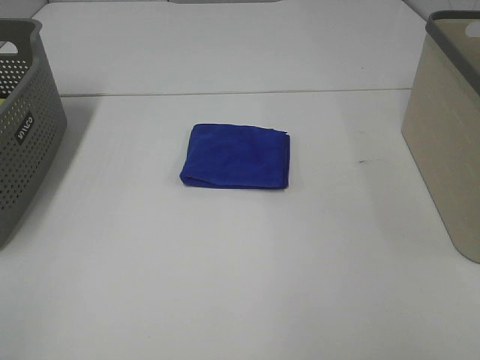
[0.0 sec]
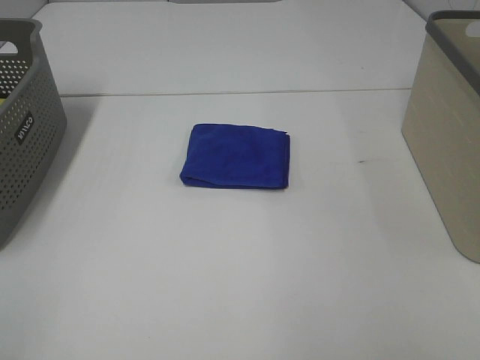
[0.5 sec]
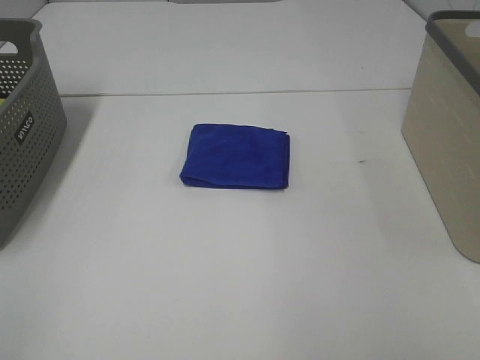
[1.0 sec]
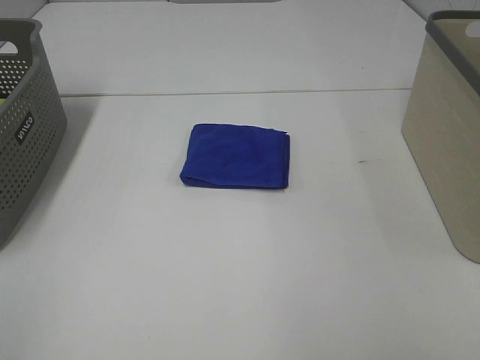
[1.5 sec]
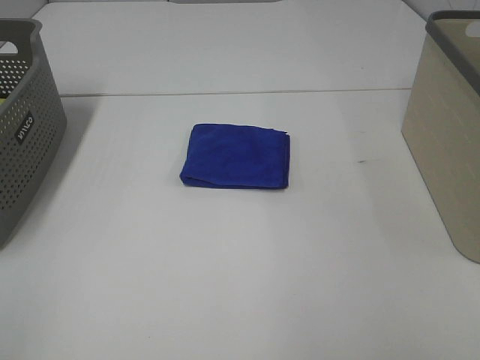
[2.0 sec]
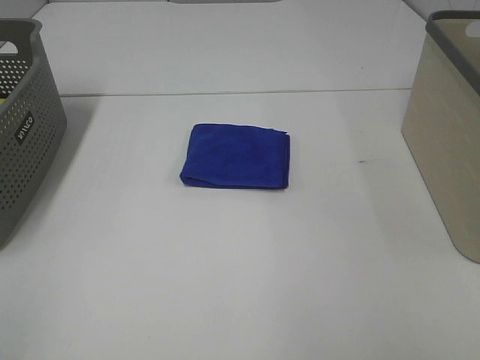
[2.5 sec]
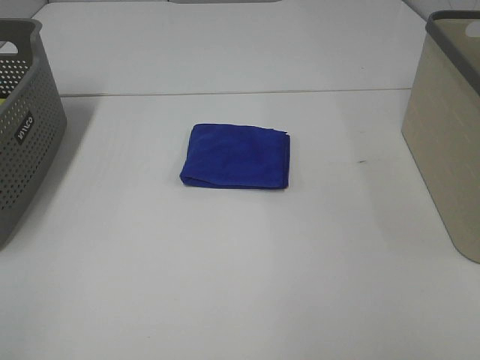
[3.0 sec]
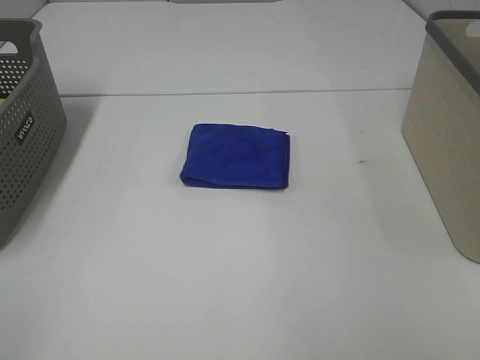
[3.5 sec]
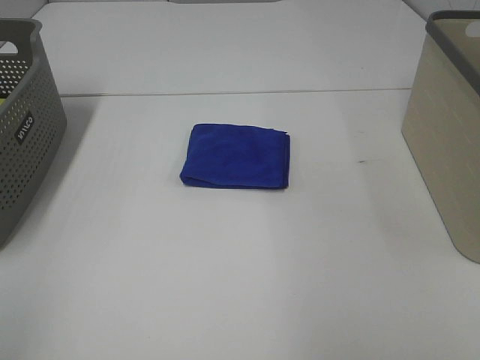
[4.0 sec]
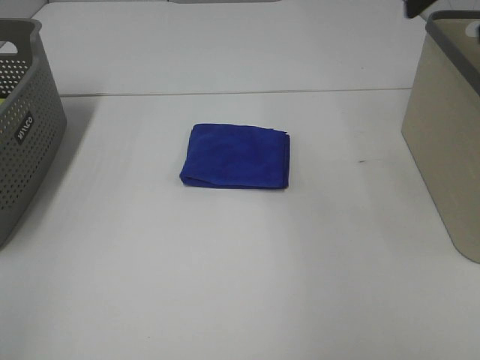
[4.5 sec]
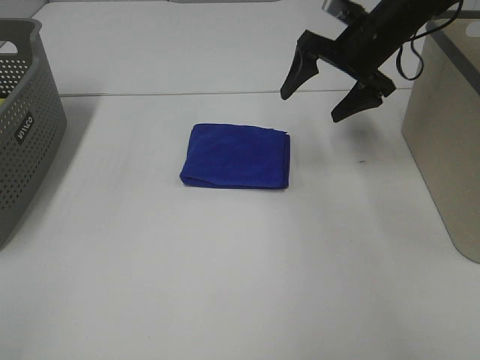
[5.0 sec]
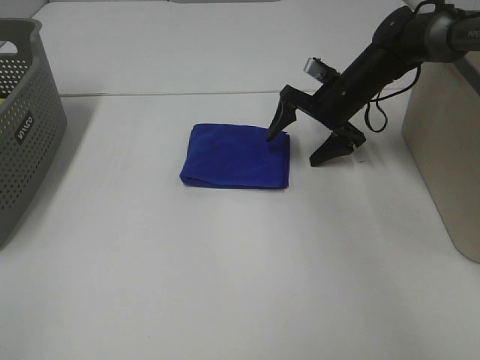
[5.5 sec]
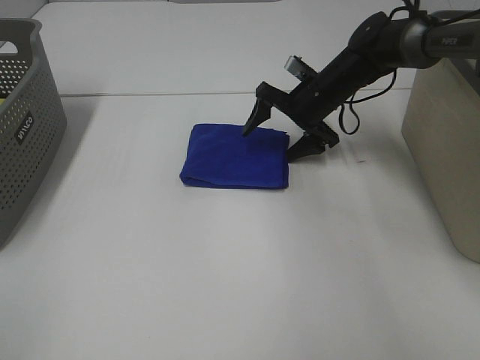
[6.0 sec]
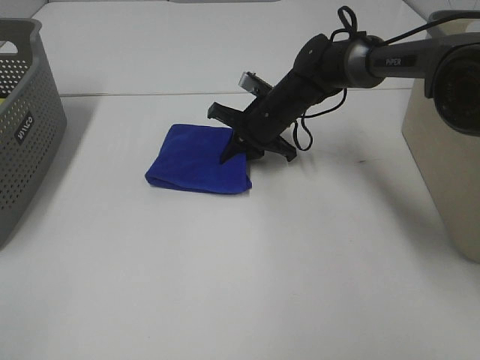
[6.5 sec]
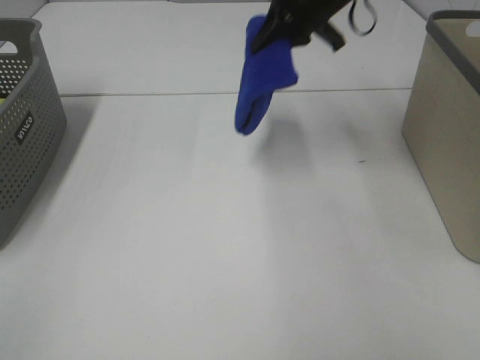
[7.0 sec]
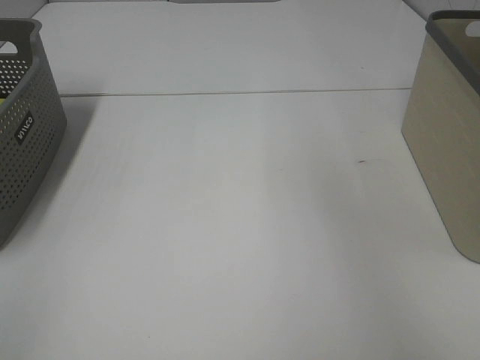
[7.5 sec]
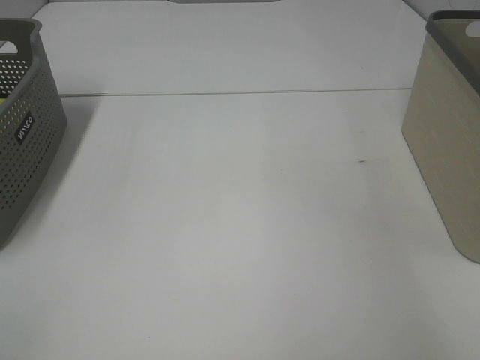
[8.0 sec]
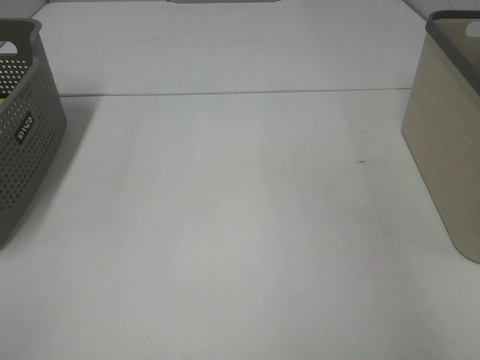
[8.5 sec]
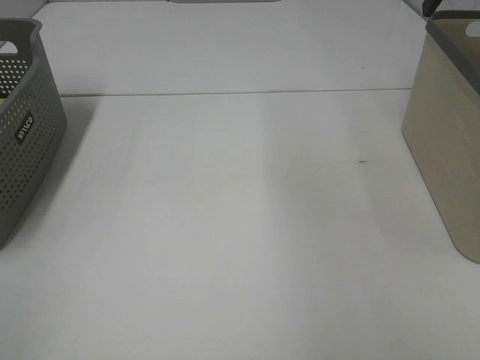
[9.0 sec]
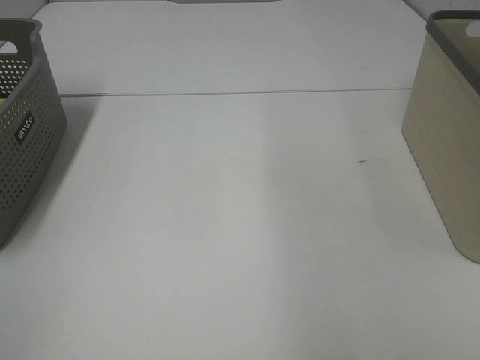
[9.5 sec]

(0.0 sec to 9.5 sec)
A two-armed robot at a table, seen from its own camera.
Step, 0.0 sec - 6.5 sec: Right hand: grab the folded blue towel.
Step, 7.0 sec - 8.5 sec: Right hand: place the blue towel in right basket.
0.0 sec - 2.0 sec: Both grippers stay put.
4.0 sec - 5.5 sec: The right gripper is displaced forward and downward by some 50 cm.
5.5 sec - 7.5 sec: The right gripper goes some 40 cm upward and to the right, and closes up.

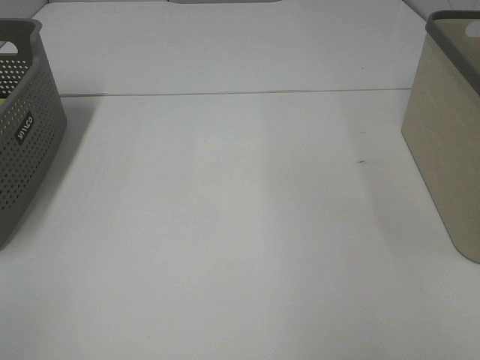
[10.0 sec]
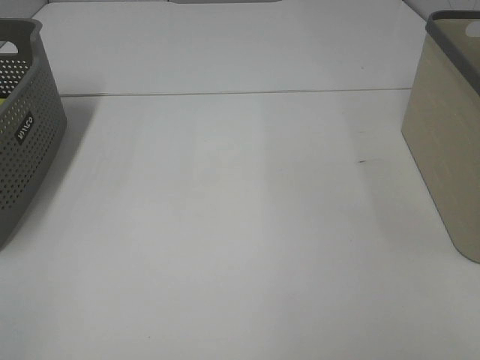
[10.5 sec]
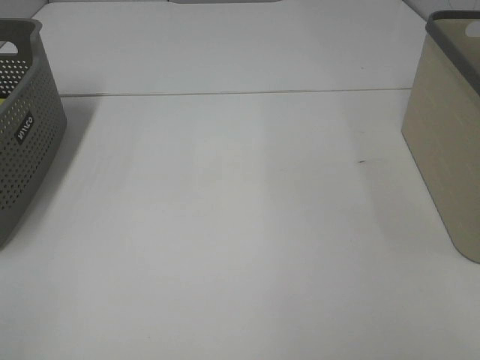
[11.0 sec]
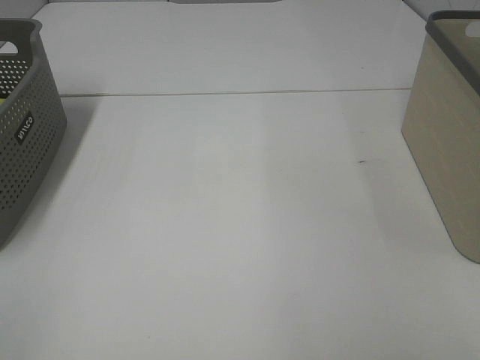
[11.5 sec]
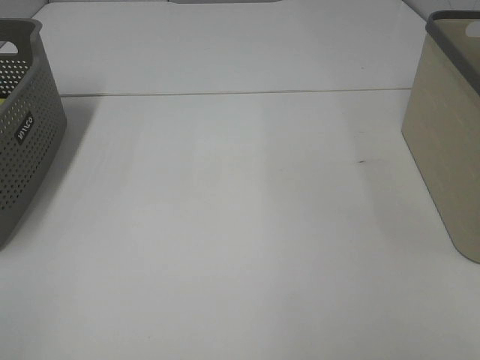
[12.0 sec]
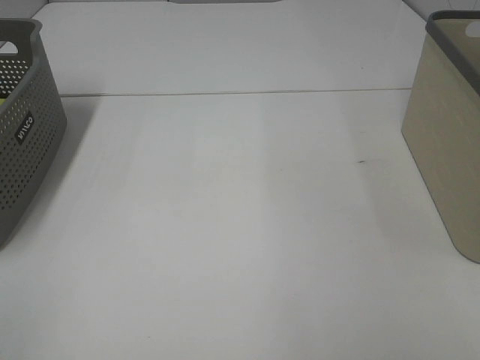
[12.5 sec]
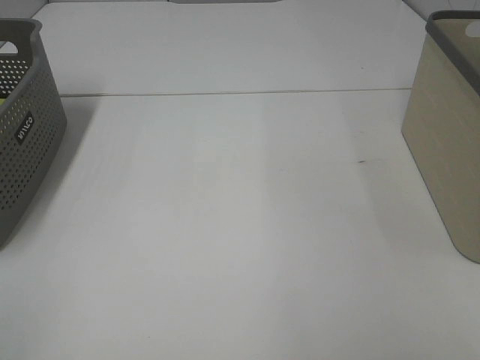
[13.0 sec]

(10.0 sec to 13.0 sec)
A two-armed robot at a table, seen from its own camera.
11.5 sec - 13.0 sec: Neither gripper changes place.

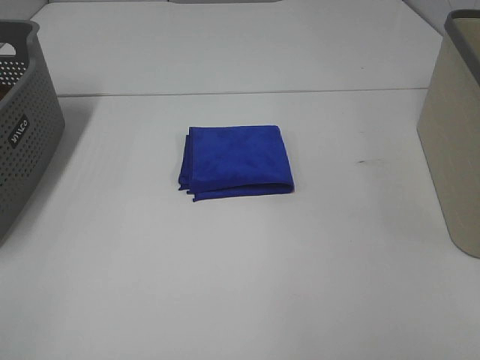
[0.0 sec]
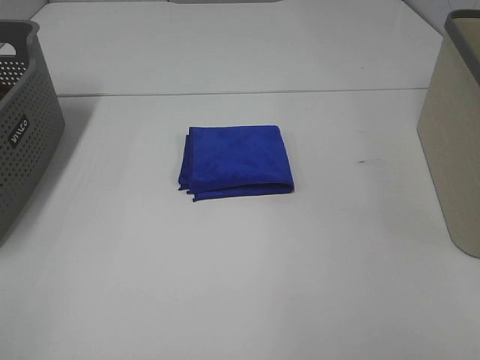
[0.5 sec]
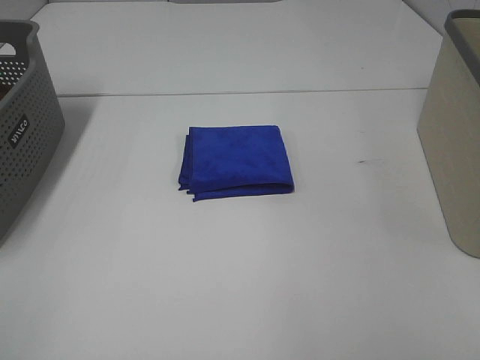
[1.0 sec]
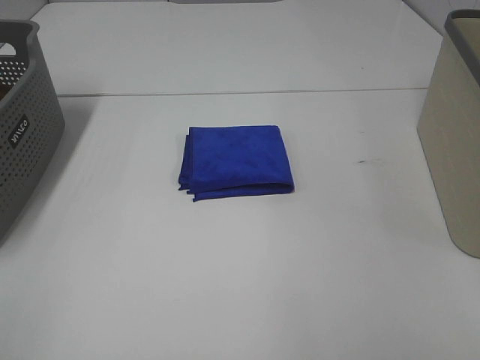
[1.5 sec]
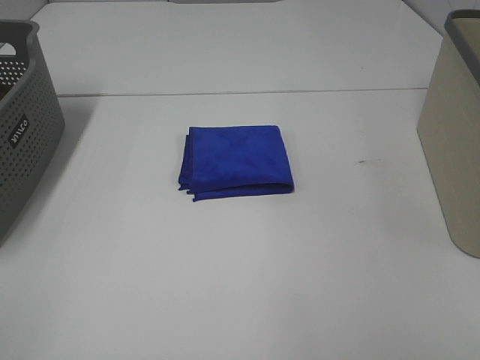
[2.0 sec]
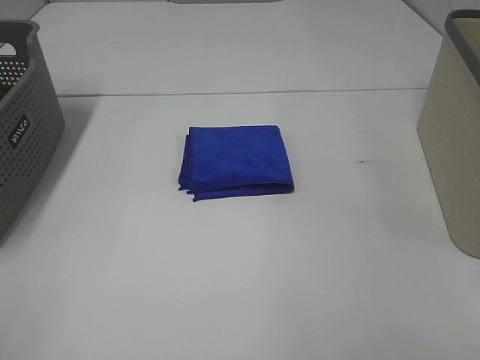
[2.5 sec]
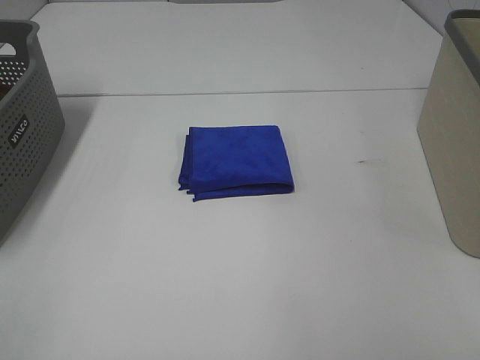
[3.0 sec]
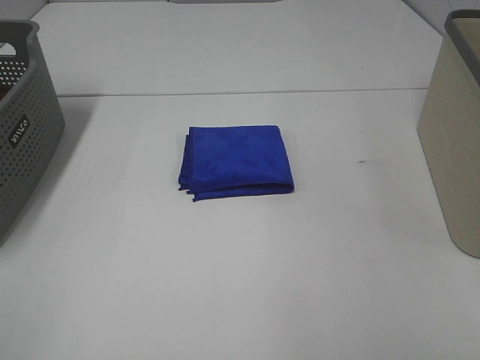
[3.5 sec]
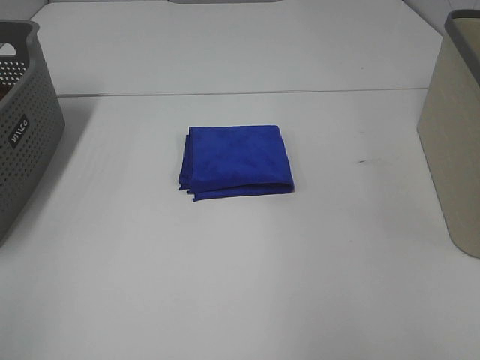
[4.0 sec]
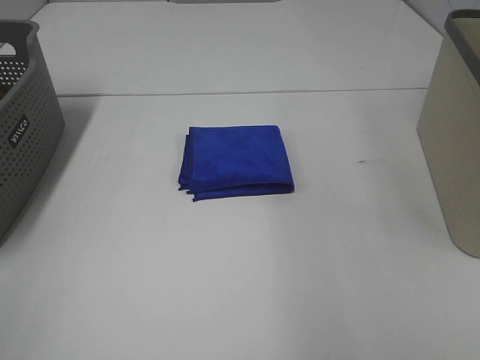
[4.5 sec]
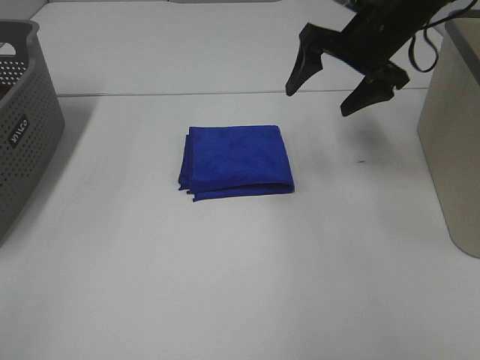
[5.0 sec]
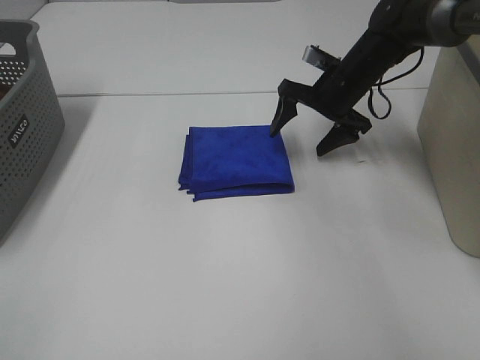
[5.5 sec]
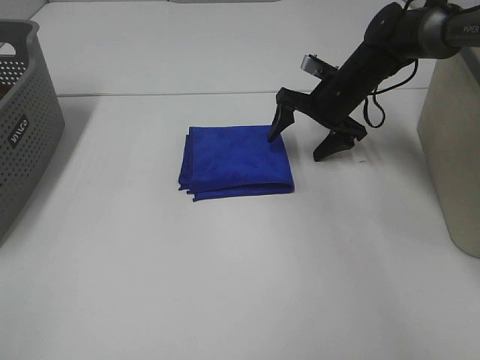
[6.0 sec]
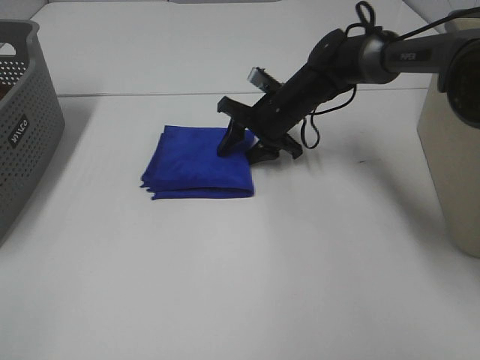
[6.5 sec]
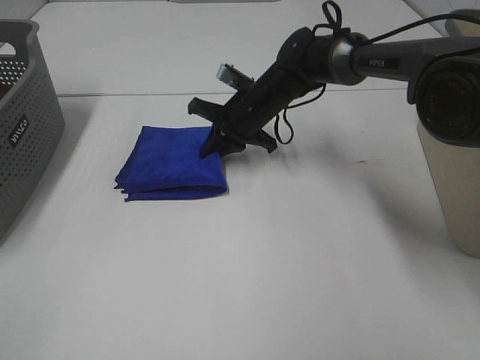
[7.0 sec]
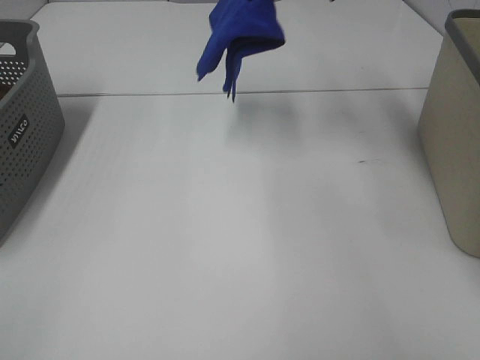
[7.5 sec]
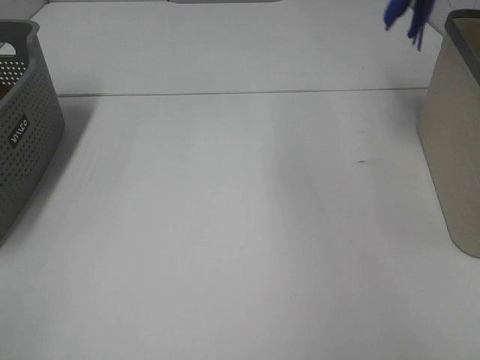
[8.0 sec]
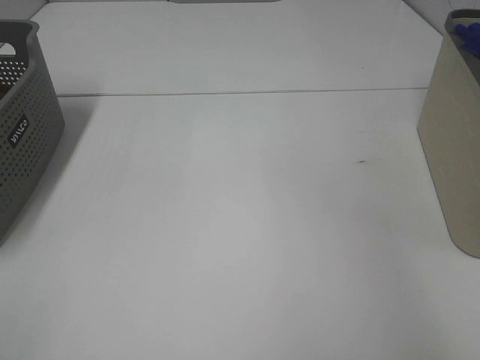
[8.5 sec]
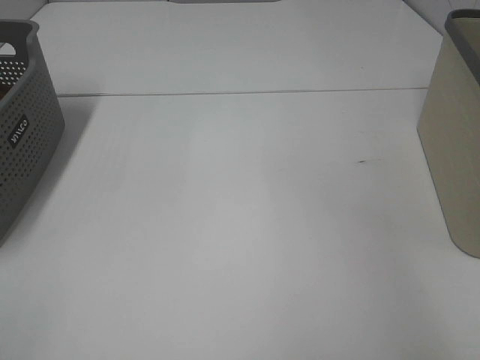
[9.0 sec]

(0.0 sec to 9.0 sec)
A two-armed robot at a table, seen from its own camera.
Step, 0.0 sec - 6.5 sec: Right hand: grab the folded blue towel.
0.0 sec - 2.0 sec: Neither gripper changes place.
4.5 sec - 7.0 sec: The right gripper moves downward, to the left and forward, about 40 cm, and closes its fingers.
7.0 sec - 9.0 sec: The right gripper goes approximately 40 cm to the right and upward, and opens.

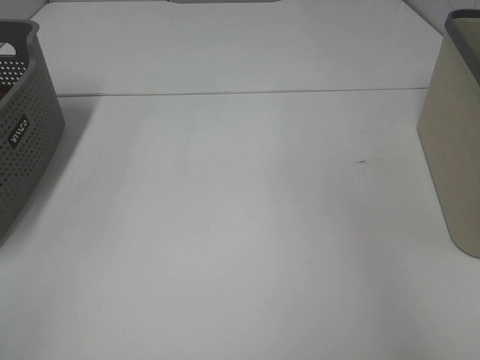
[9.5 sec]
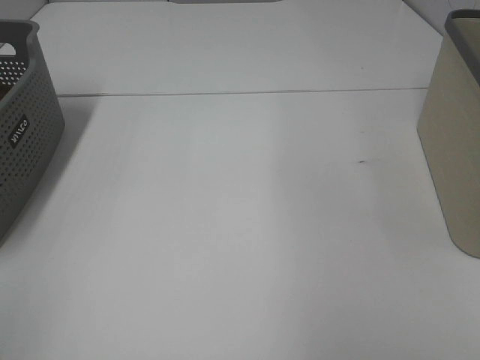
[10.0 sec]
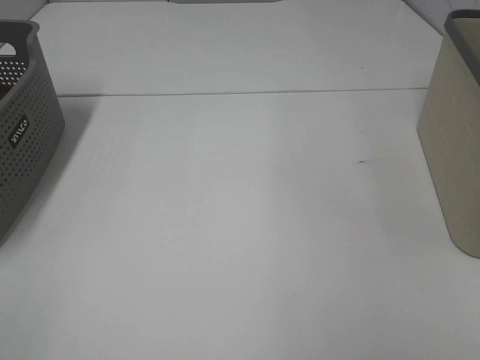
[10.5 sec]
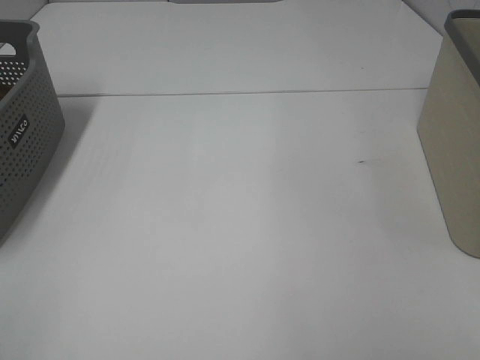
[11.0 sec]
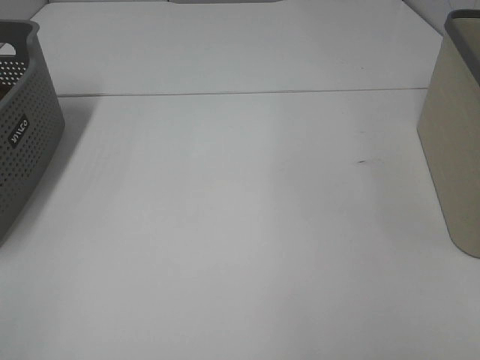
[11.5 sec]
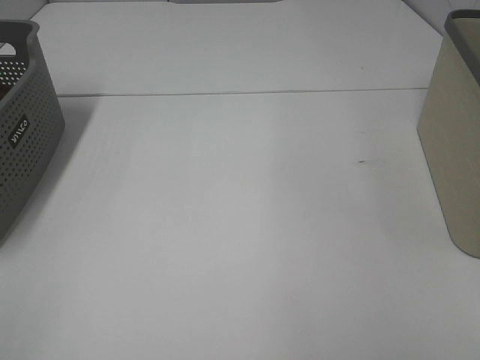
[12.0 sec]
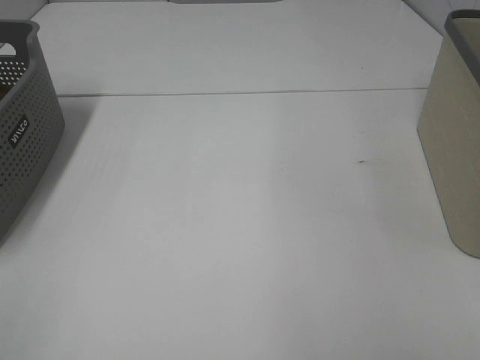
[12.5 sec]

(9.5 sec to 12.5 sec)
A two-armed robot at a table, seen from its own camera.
11.0 sec - 12.5 sec: Both grippers stay put.

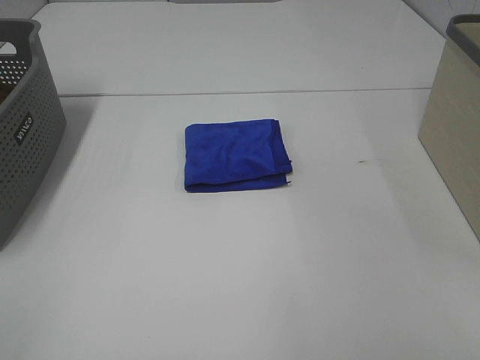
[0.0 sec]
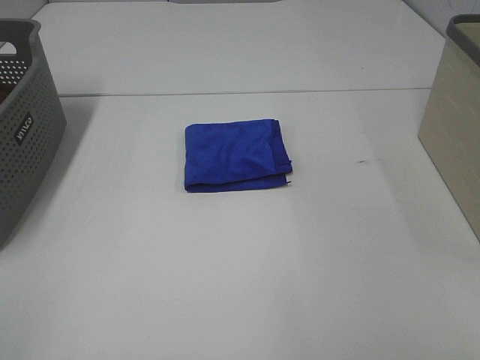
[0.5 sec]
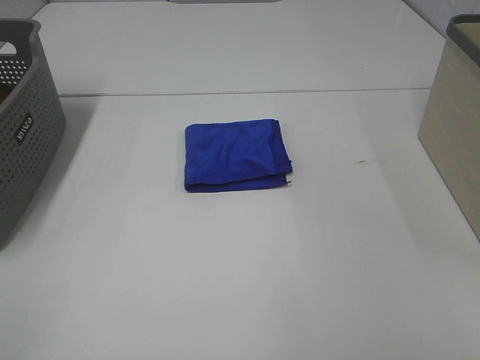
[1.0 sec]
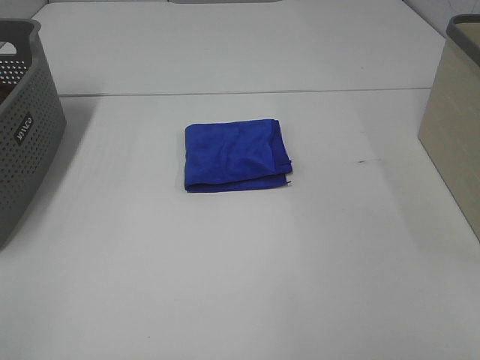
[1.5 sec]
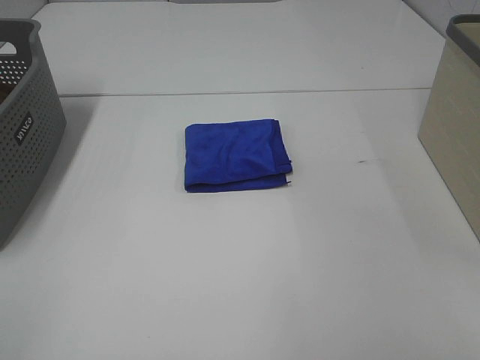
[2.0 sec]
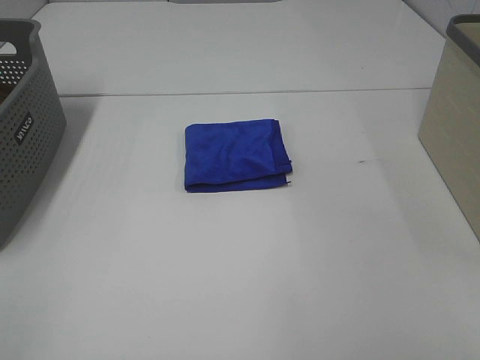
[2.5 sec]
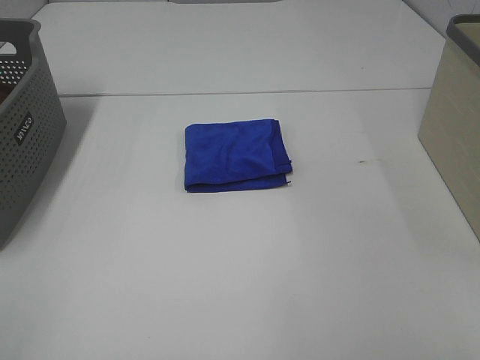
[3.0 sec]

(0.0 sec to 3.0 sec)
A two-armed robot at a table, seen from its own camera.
0.0 sec - 3.0 sec: Both grippers stay about where they are.
